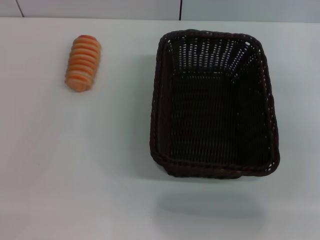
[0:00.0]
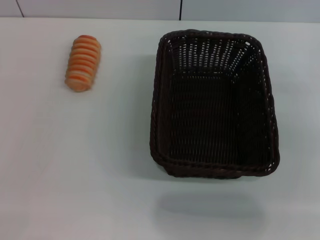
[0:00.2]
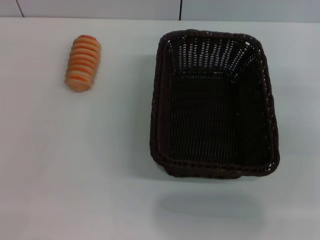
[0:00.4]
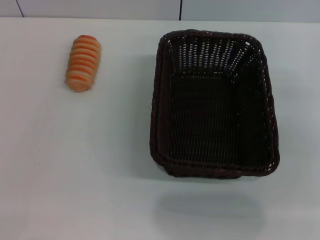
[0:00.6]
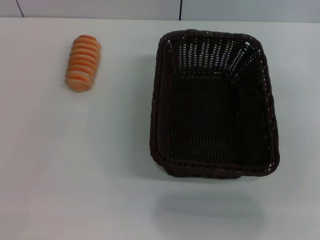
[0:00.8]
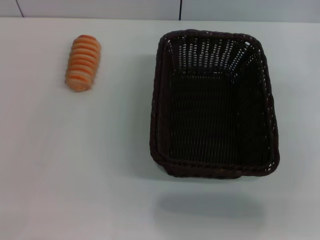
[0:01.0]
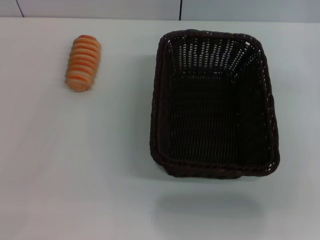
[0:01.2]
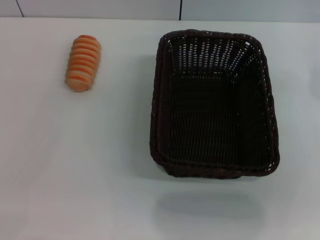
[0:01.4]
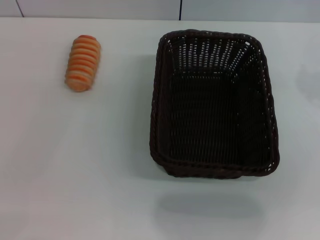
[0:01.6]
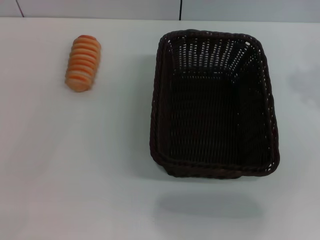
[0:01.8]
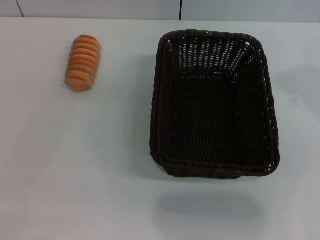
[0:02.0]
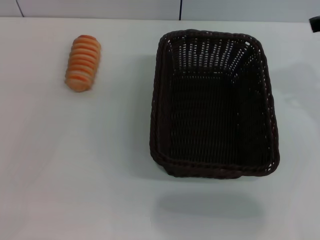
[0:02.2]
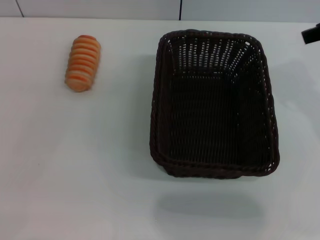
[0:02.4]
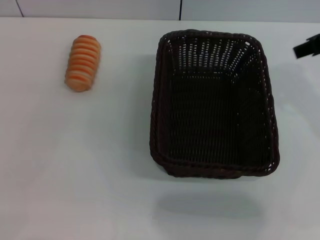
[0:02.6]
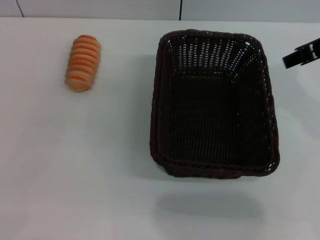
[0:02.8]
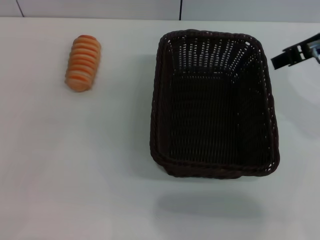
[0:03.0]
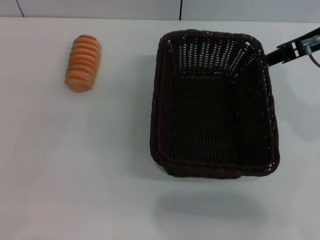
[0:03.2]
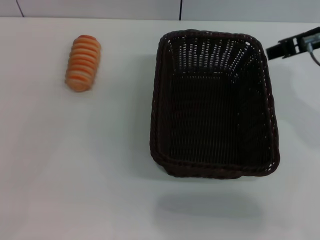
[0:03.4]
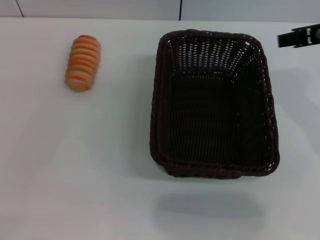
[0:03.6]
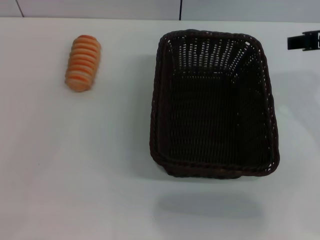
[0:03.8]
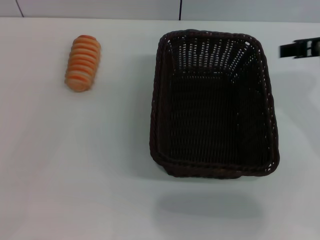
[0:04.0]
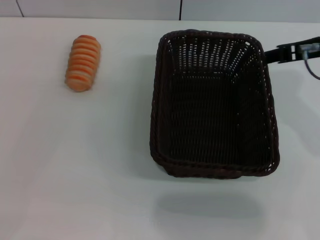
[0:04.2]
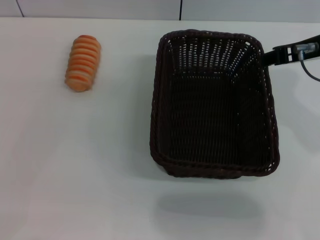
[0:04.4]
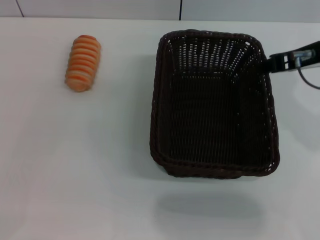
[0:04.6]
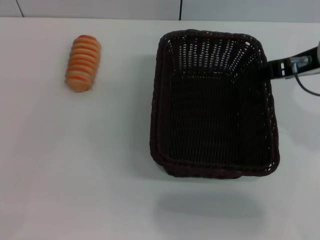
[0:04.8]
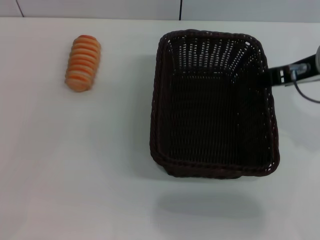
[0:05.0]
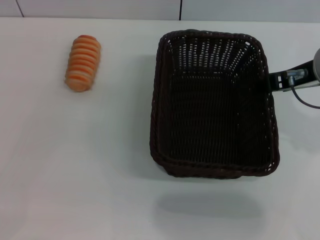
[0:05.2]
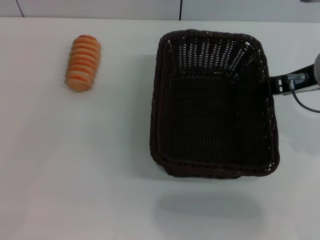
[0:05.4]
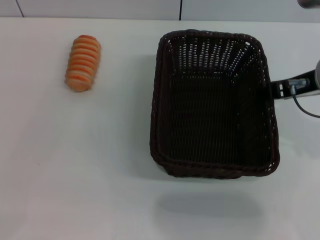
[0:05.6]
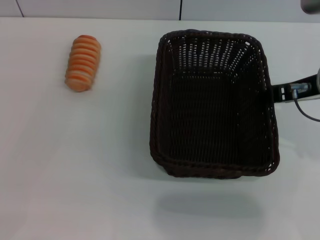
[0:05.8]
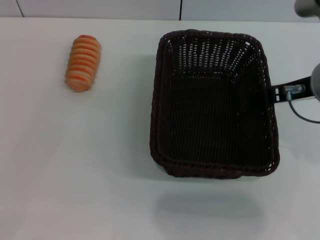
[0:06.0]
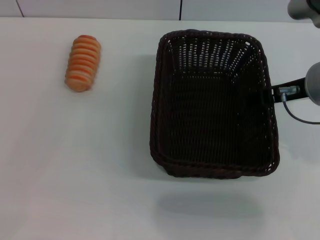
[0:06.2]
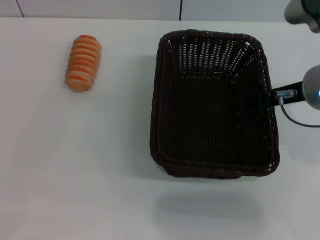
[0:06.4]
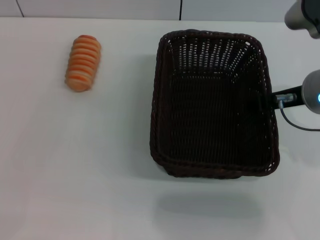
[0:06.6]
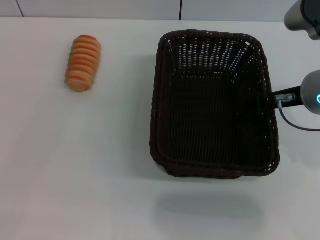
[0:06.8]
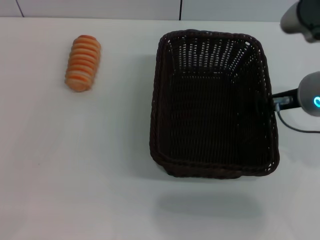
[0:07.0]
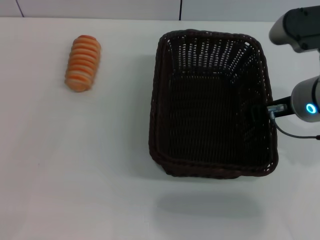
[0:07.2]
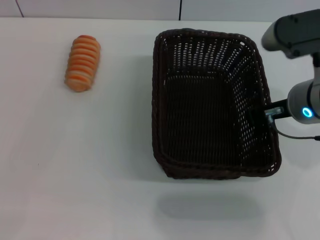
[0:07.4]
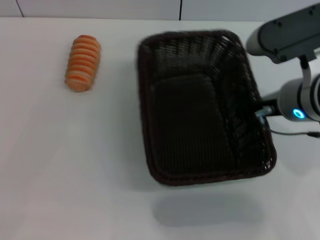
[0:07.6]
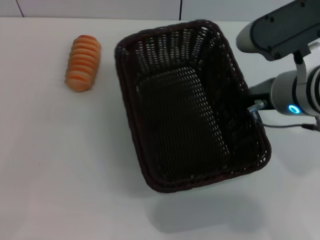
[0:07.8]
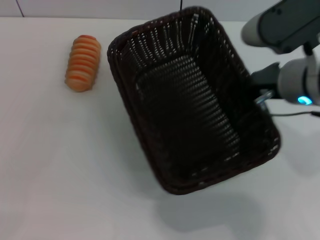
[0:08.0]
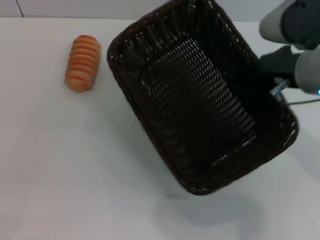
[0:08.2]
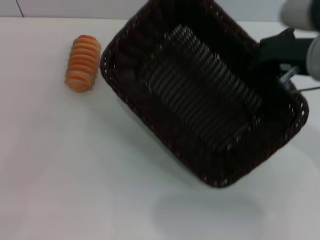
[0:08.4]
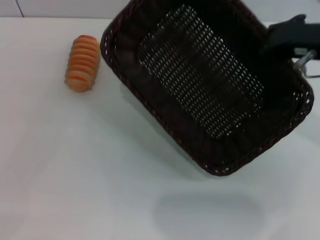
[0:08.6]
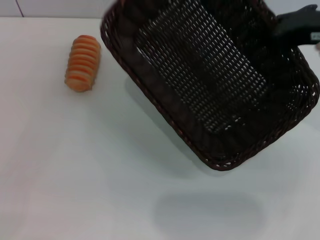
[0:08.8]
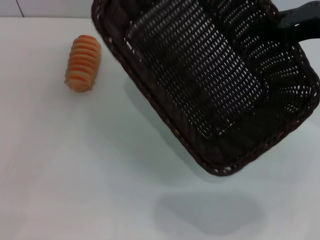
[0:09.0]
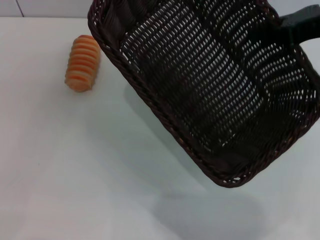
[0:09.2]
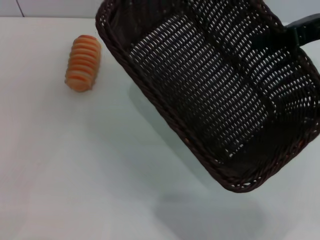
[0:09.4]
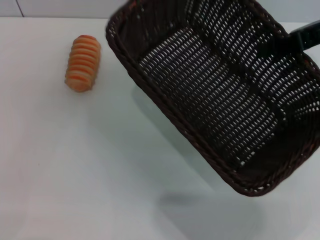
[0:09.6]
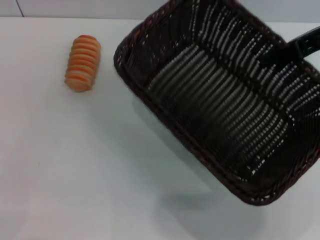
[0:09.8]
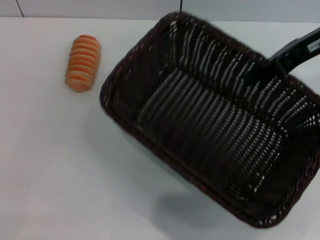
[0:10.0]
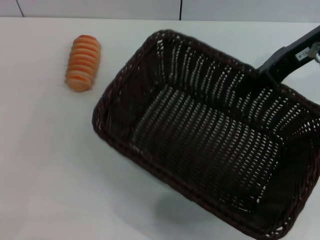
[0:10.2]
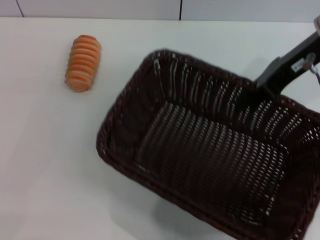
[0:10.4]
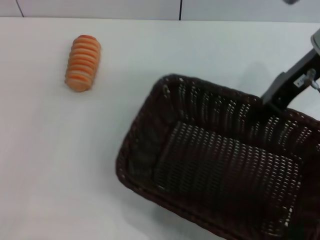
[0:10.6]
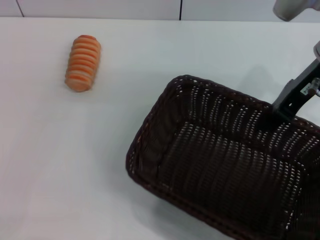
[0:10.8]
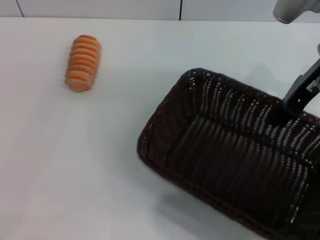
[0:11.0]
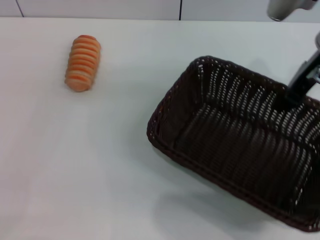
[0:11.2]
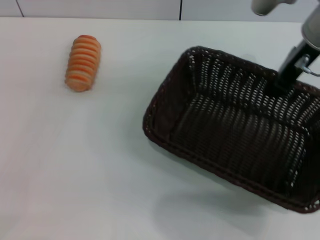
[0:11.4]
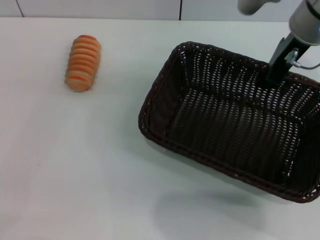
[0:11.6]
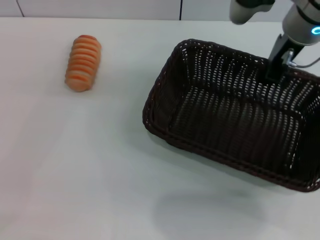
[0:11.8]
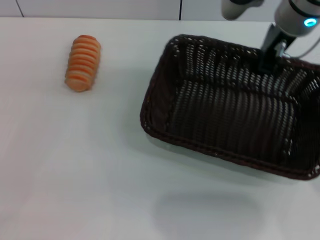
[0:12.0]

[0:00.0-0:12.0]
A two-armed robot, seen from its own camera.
Step, 0:00.0 to 0:09.4: Pick up the dark basket with the right gripper.
0:01.6 to 0:03.0: The right gripper moves to the left, about 10 cm.
0:03.0 to 0:04.4: The grippers stay close to where they were, moving slightly.
0:04.4 to 0:06.0: There are only small adjustments of the grippers.
0:06.0 to 0:07.6: The right gripper closes up.
0:07.6 to 0:09.0: The right gripper shifts roughly 10 cm upward and to the right.
0:09.0 to 0:10.4: The right gripper ends up about 5 cm from where it was.
0:10.4 to 0:12.0: The right gripper shifts approximately 5 cm to the left. The left gripper shifts about 5 cm forward.

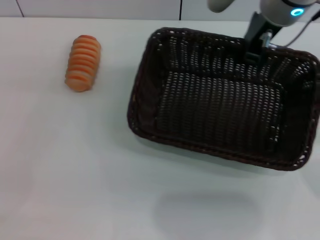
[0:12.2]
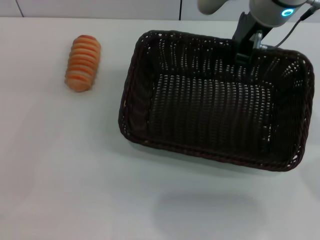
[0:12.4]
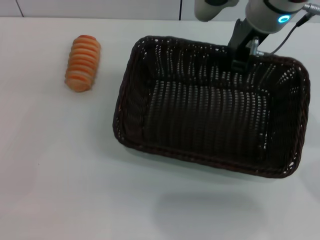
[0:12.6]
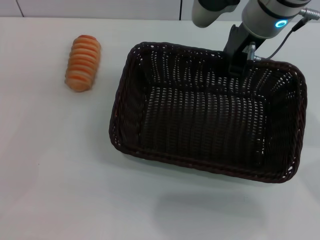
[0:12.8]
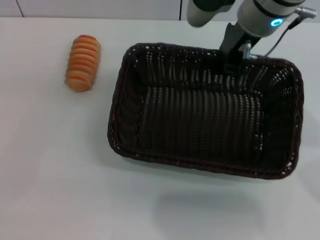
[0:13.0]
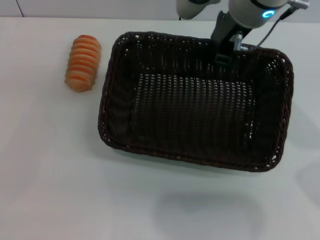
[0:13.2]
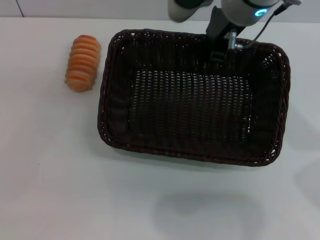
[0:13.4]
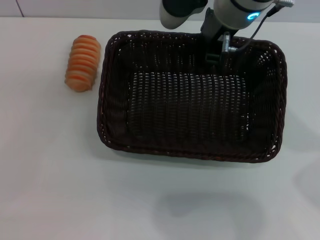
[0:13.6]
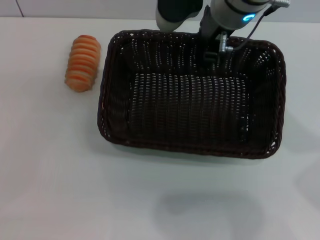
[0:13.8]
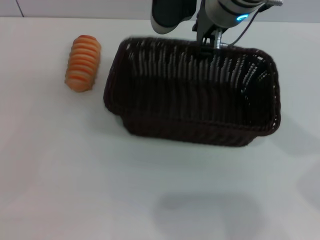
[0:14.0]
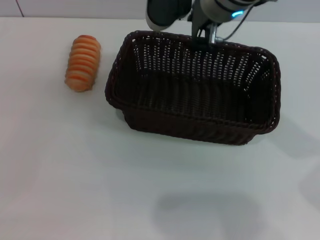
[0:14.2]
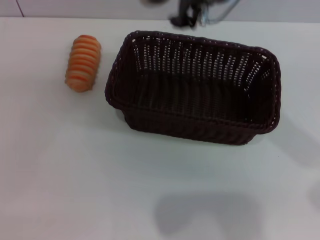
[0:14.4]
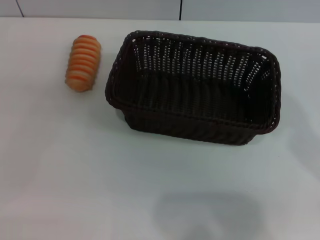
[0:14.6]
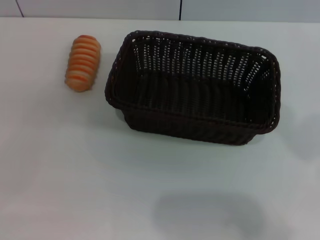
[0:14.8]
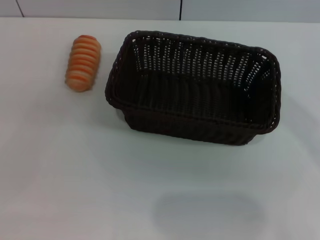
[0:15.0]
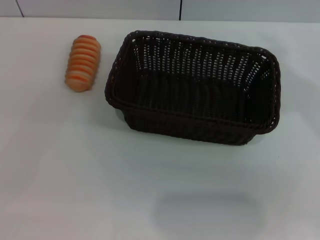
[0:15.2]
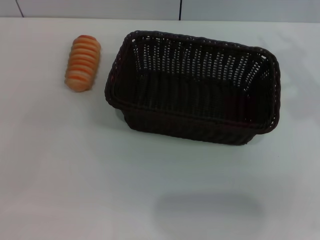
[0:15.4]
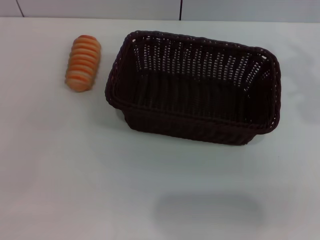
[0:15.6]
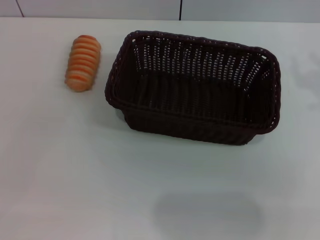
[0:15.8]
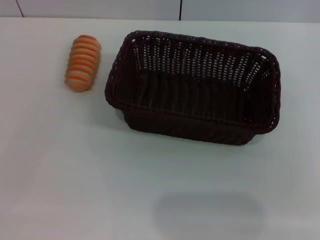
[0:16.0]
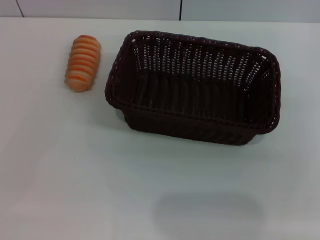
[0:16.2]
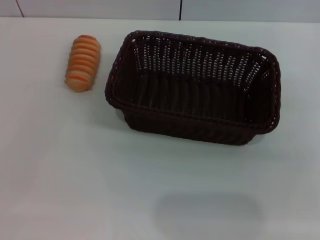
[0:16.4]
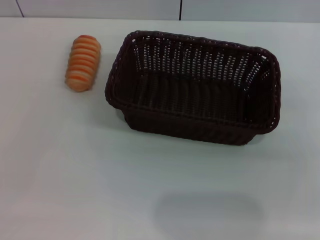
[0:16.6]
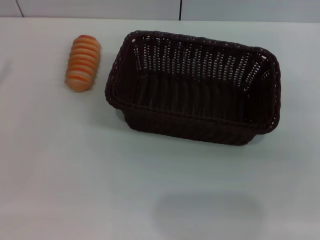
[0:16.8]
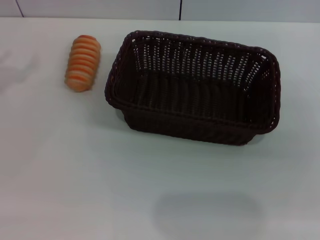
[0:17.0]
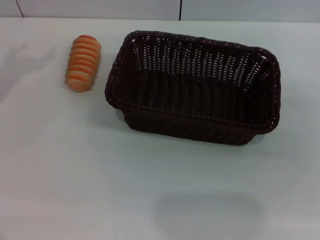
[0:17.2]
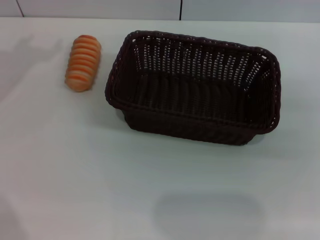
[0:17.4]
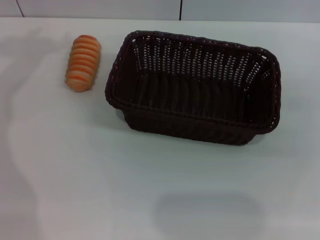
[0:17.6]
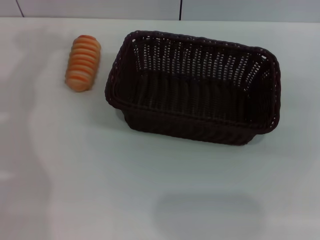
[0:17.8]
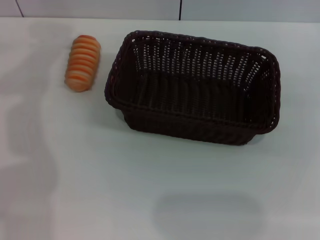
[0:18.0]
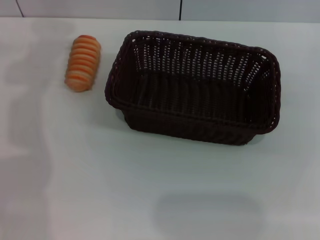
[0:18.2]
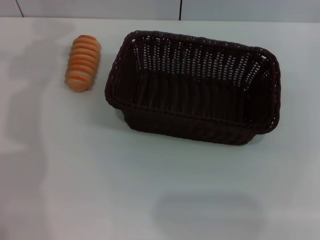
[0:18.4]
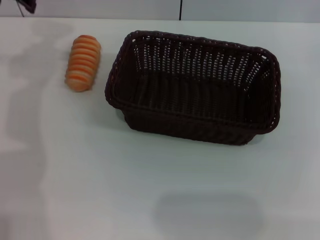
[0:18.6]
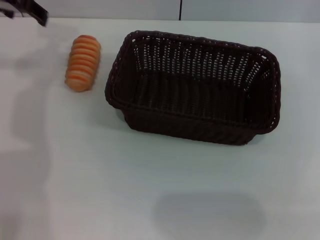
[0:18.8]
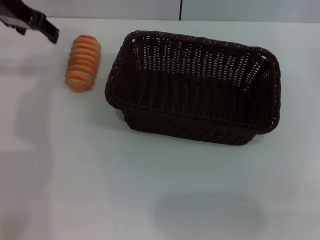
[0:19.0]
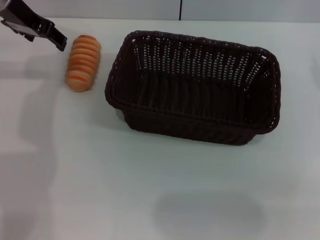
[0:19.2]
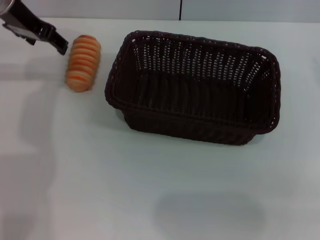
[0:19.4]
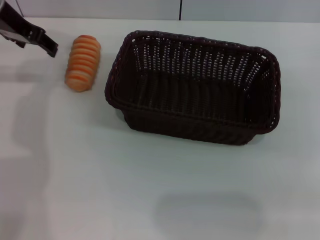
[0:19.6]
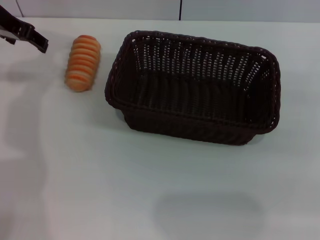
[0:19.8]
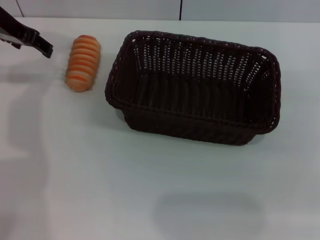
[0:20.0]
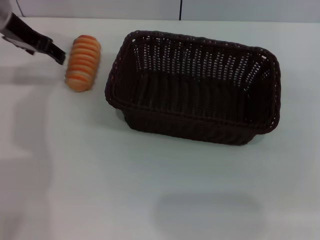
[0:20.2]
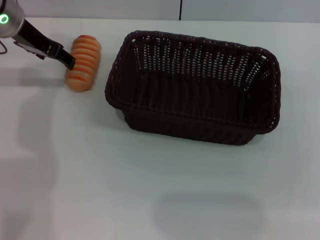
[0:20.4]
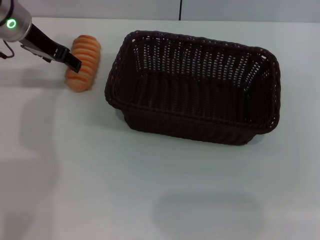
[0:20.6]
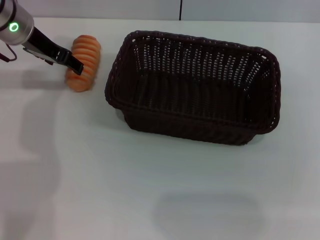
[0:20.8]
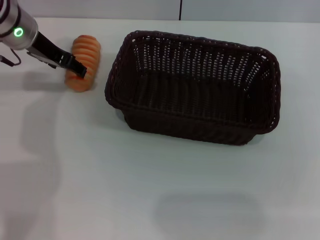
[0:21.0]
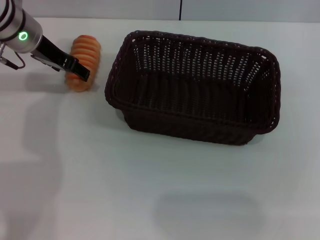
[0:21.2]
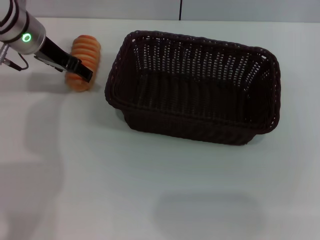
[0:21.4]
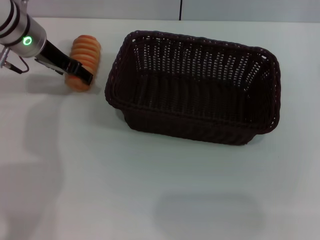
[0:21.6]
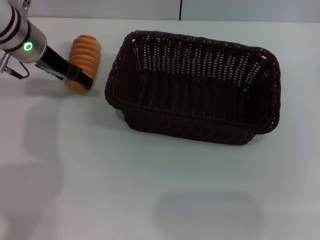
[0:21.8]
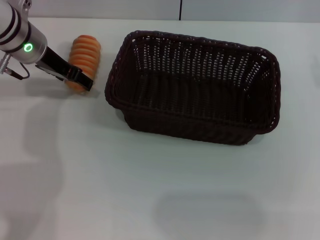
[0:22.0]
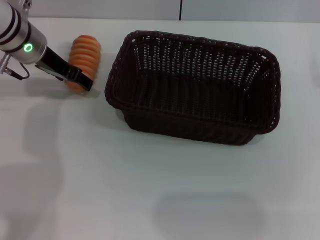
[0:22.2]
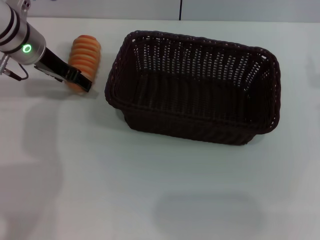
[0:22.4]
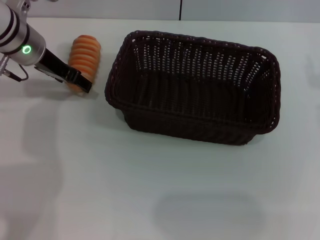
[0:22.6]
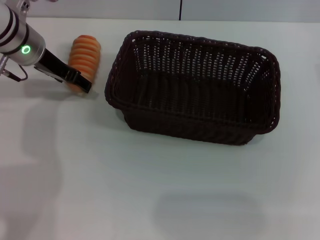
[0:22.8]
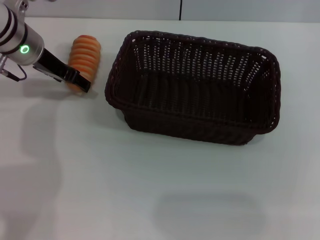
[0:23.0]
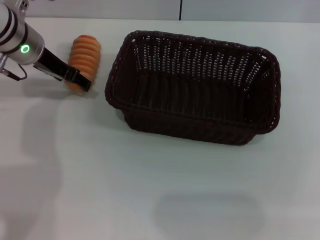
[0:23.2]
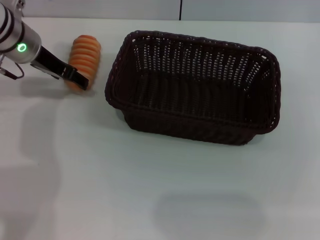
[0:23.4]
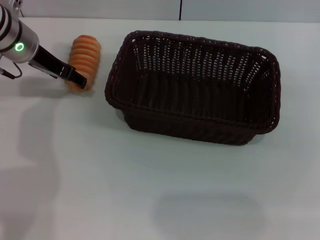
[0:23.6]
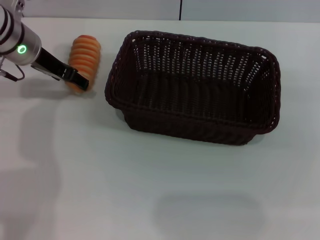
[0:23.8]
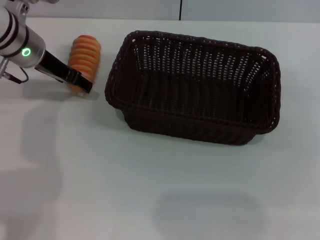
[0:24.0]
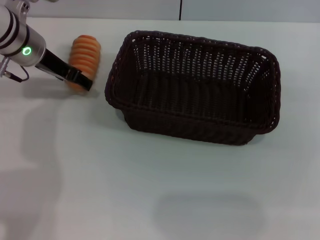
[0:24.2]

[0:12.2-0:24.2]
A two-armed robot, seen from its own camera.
Step, 0:12.2 to 0:14.2: Place the dark basket in the center of view with the right gripper.
0:12.2 to 0:13.8: The right gripper moves to the left, about 5 cm, and opens up.
0:13.8 to 0:15.2: The right gripper heads to the right, backward and upward, covering some 20 cm.
0:15.2 to 0:16.6: The right gripper is displaced to the right, backward and downward by about 15 cm.
0:18.2 to 0:19.8: The left gripper is displaced downward by approximately 10 cm.
0:19.8 to 0:21.2: The left gripper heads downward, covering about 5 cm.
0:21.2 to 0:22.6: There are only small adjustments of the grippers.
